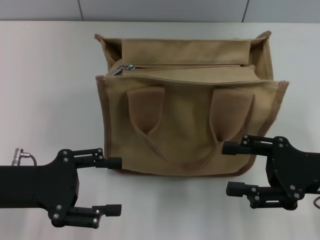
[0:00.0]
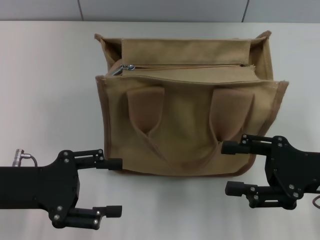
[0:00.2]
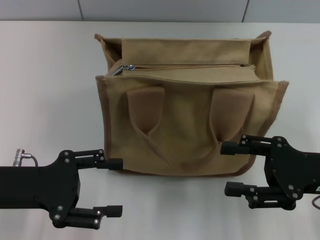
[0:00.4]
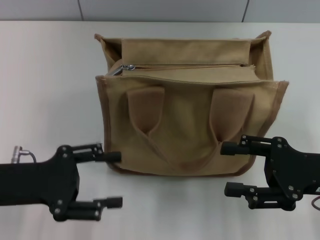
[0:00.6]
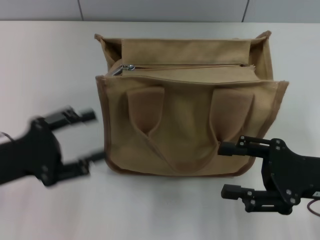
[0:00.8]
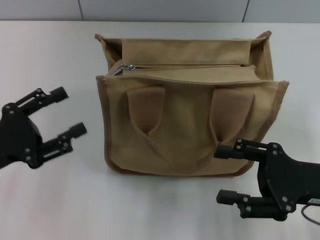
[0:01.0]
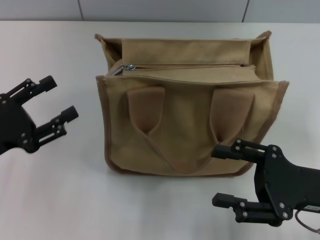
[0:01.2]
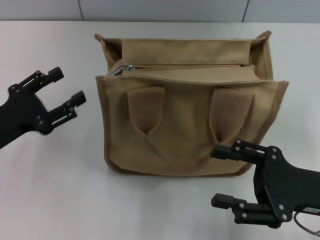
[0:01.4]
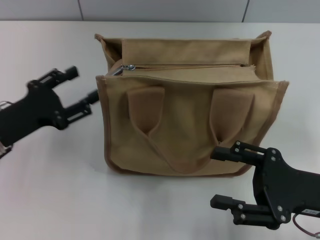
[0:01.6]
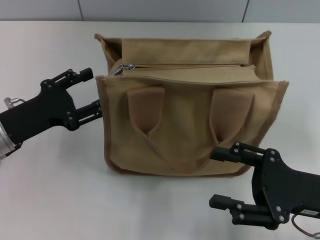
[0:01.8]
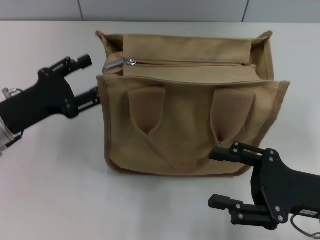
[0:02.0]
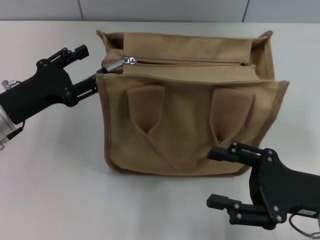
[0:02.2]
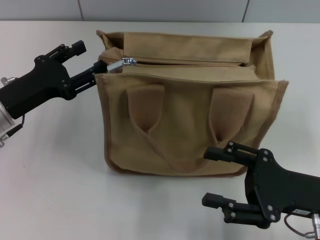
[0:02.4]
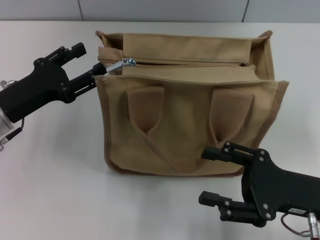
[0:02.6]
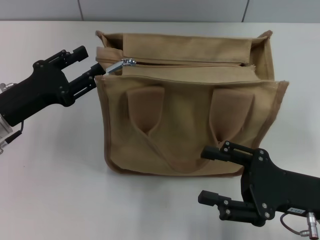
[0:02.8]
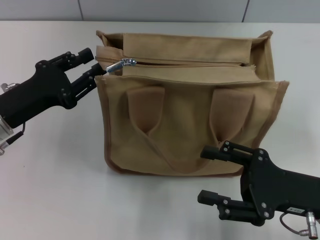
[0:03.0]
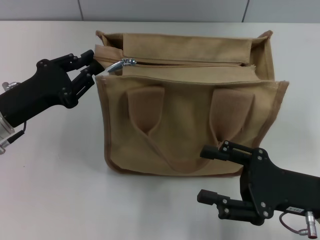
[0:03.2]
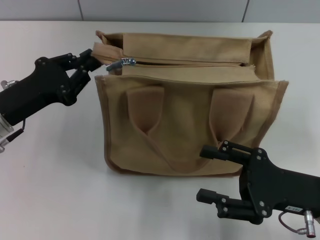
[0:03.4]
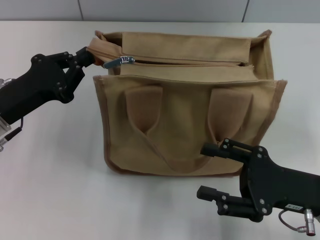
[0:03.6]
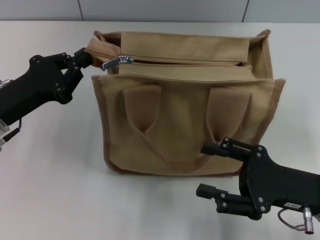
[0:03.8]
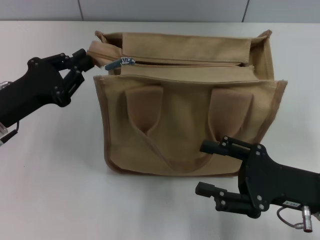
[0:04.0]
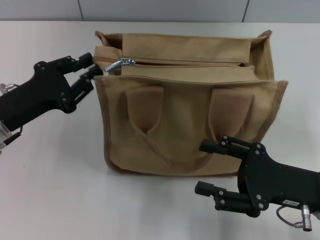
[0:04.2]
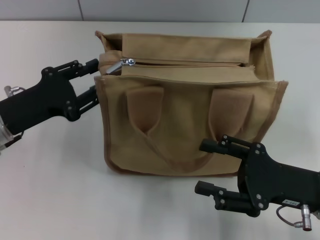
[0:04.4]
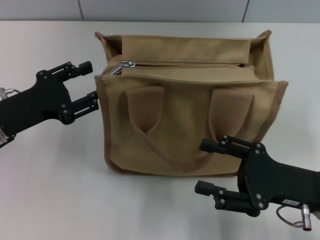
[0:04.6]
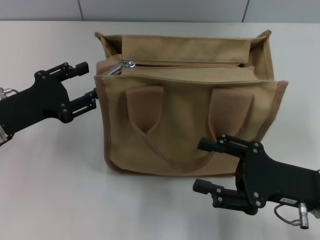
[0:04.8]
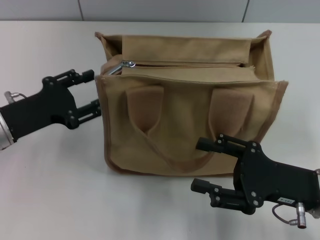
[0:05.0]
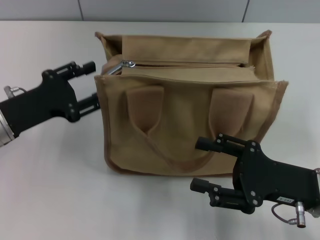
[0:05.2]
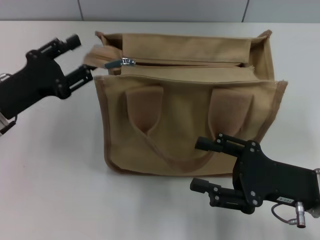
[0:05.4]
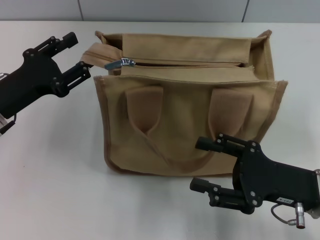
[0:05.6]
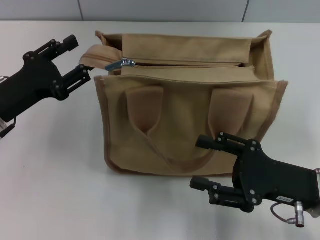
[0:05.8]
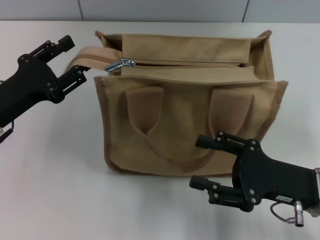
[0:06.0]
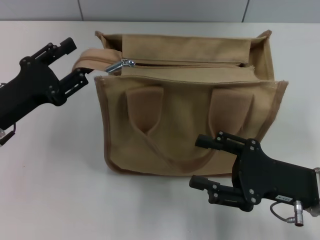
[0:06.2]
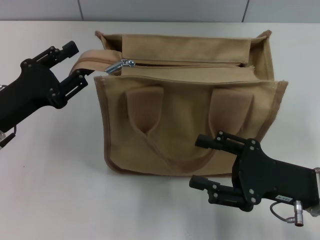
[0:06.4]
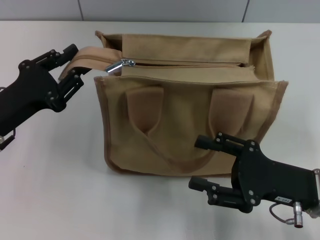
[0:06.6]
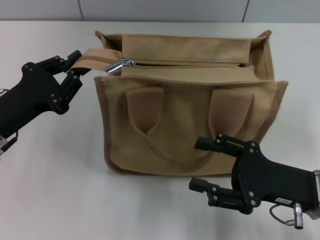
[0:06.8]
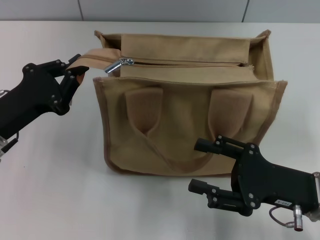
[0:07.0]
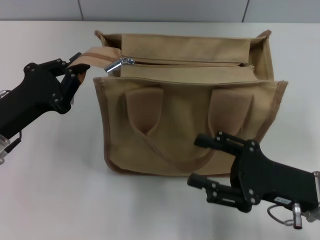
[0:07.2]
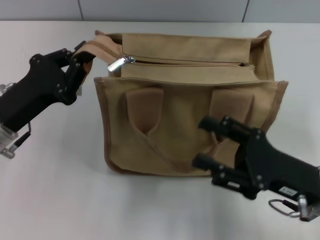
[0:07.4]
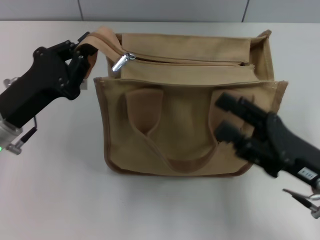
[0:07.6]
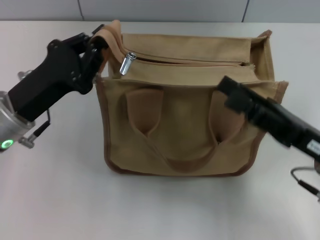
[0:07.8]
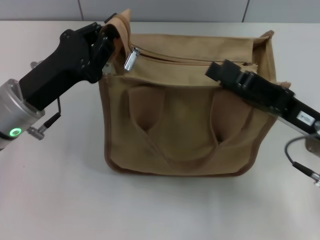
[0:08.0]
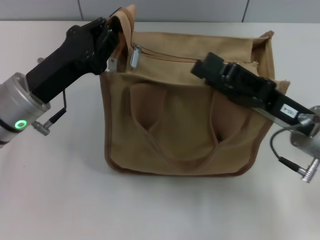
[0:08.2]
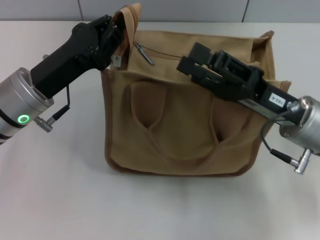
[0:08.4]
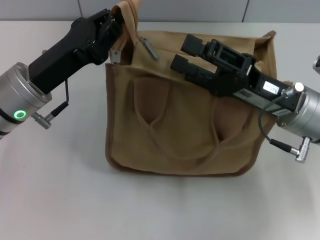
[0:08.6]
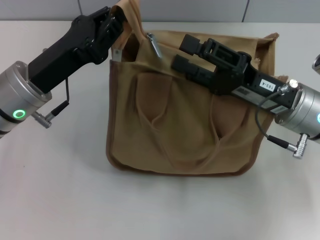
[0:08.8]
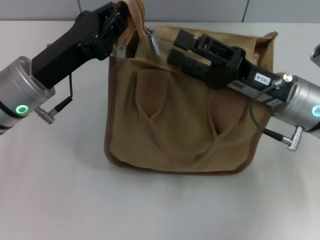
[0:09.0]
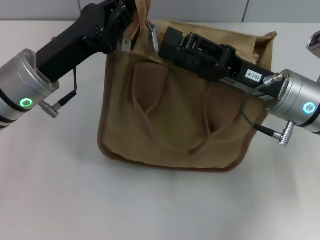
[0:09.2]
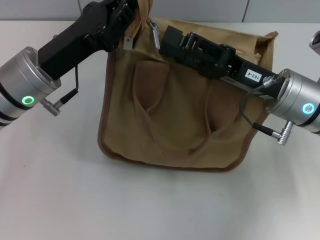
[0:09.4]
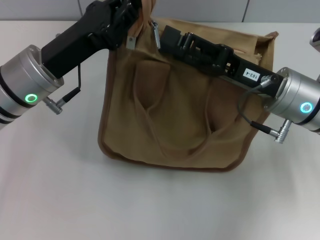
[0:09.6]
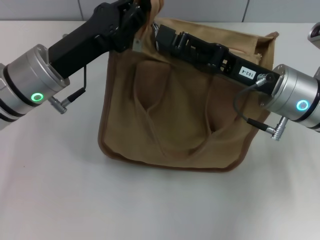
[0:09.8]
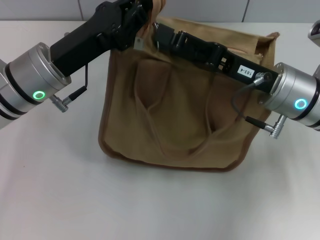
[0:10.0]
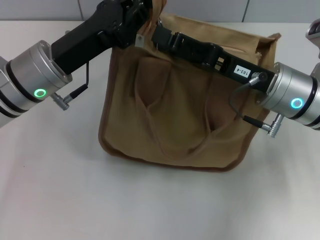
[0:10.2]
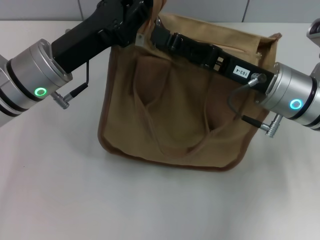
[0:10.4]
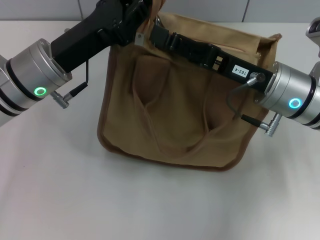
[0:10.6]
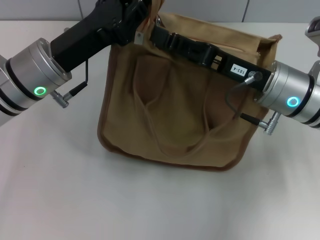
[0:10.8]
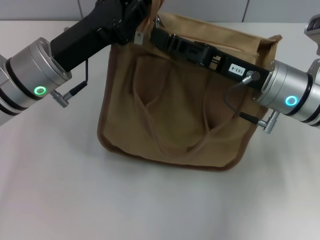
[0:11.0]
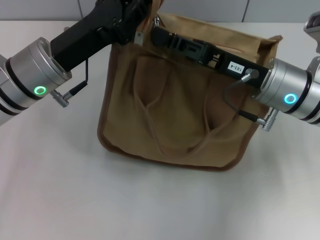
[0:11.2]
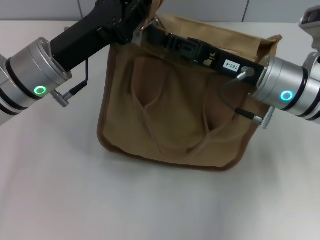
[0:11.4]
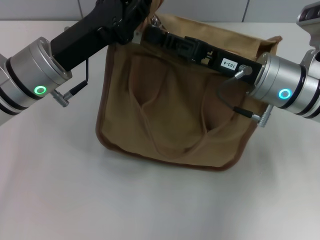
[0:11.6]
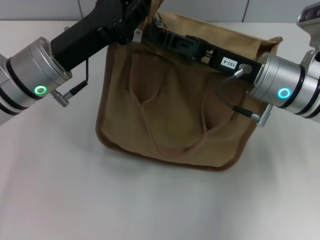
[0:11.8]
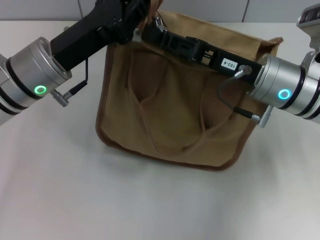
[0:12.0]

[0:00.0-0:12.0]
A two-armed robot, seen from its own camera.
0:01.6 to 0:03.0: There are only small adjustments of the grippers.
0:03.0 to 0:04.4: The left gripper closes its fingers.
0:04.4 to 0:06.0: The left gripper opens its fingers.
0:06.0 to 0:07.6: The left gripper closes up.
0:07.6 to 0:09.0: The left gripper ends up some 5 cm from where it was, while the right gripper shifts some 10 cm forward.
0:10.4 to 0:12.0: The right gripper closes up.

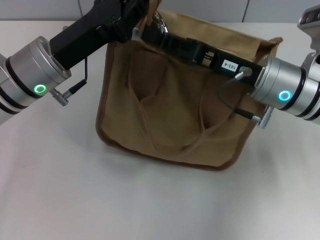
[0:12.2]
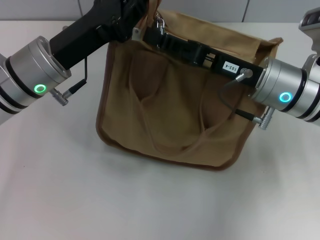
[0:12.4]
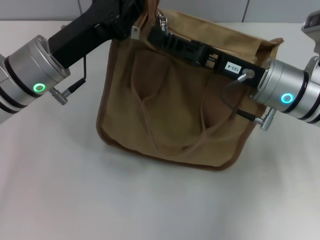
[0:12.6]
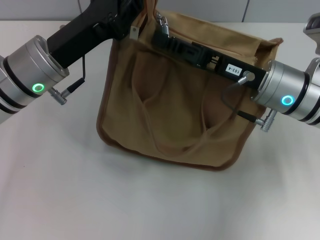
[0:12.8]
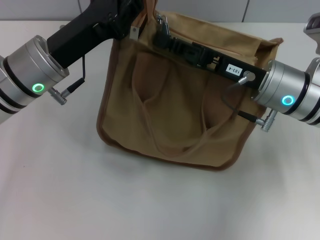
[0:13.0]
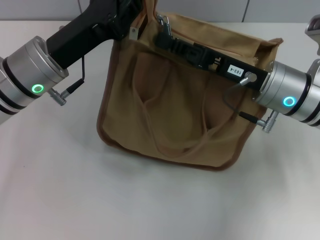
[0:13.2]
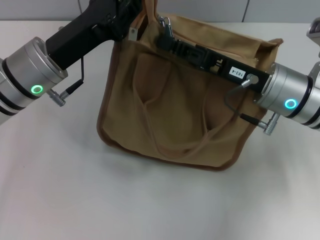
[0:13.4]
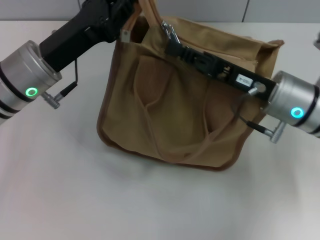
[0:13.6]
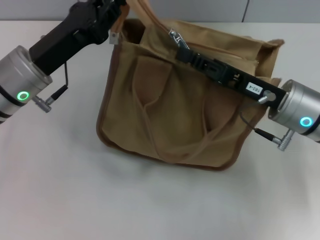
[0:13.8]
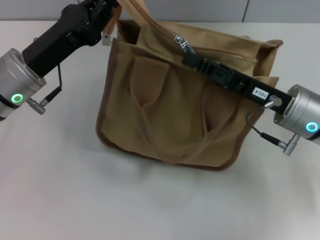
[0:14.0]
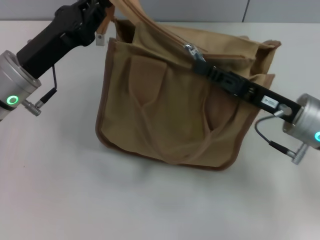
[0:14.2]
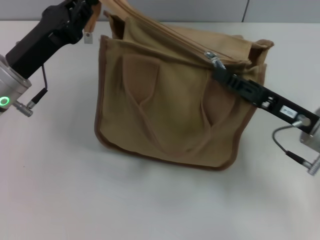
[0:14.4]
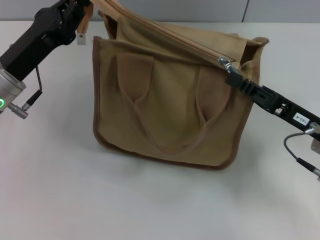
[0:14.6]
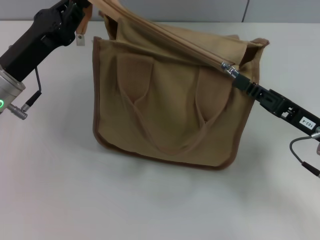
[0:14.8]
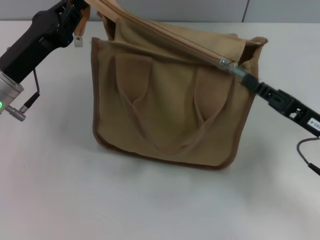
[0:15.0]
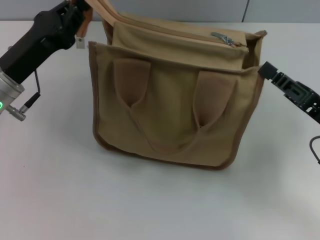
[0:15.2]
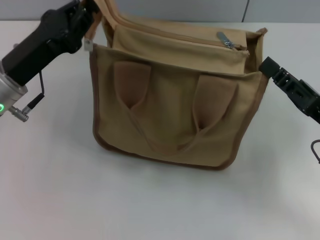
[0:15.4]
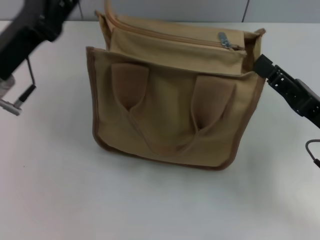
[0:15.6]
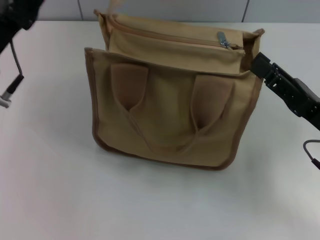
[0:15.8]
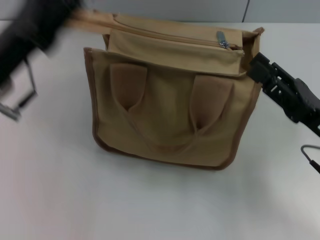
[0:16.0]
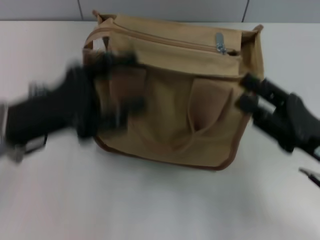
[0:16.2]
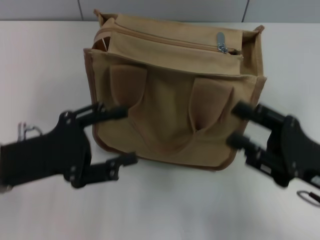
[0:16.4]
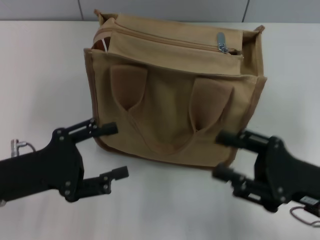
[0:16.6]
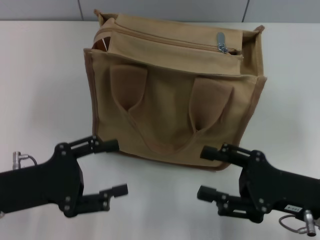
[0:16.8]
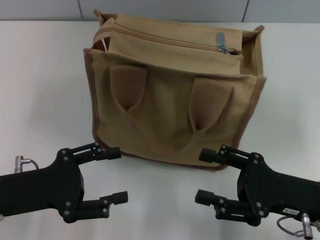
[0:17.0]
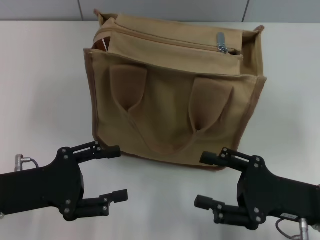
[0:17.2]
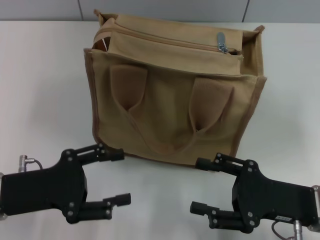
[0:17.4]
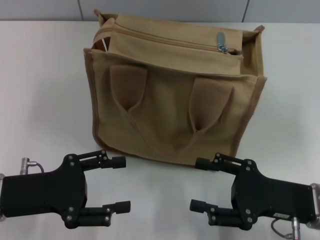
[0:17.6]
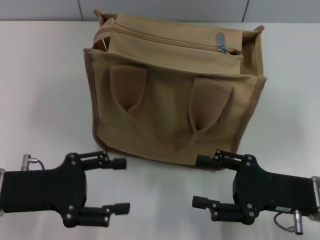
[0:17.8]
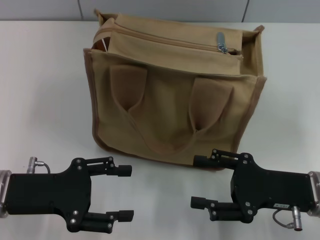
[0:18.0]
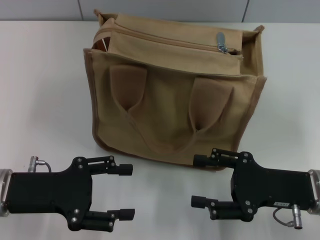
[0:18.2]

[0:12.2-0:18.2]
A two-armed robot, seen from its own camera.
Step, 0:12.2 to 0:15.0: Pull up the zipper with your right hand.
Step, 0:15.2 to 0:16.0: Grab the zipper with your left hand.
0:12.2 to 0:13.8: The right gripper closes up.
0:13.8 to 0:15.2: The right gripper heads to the right and backward, covering roughly 10 cm.
0:15.2 to 0:16.6: The left gripper heads backward, covering roughly 10 cm, and opens. The right gripper shifts by approximately 5 cm, and opens its fingers.
0:16.6 to 0:18.2: The grippers make only small movements.

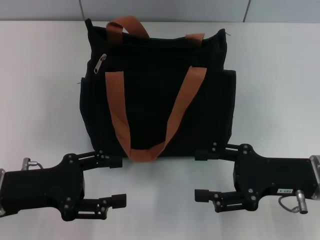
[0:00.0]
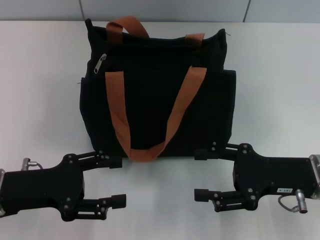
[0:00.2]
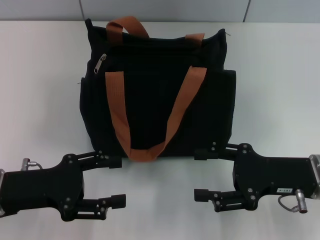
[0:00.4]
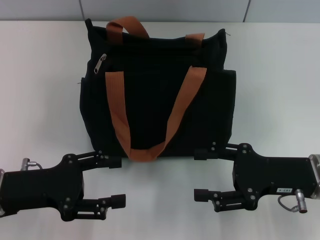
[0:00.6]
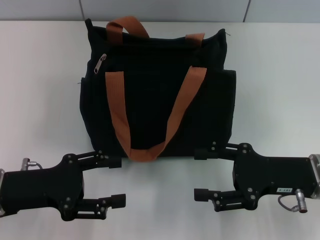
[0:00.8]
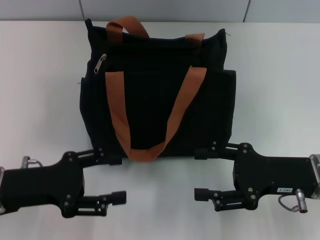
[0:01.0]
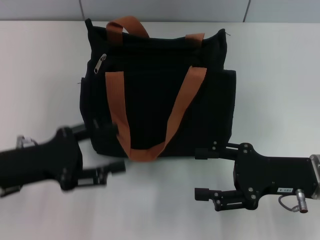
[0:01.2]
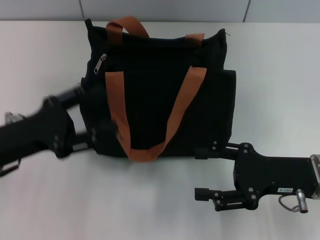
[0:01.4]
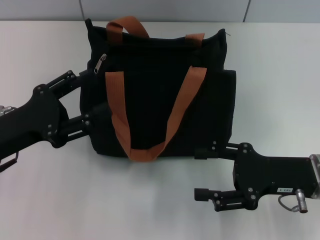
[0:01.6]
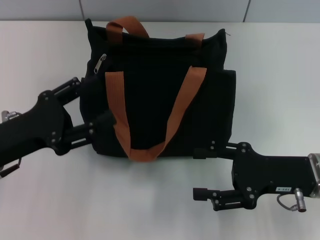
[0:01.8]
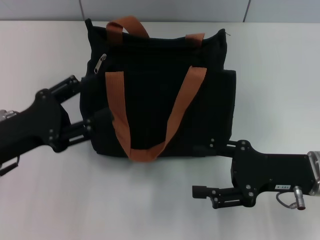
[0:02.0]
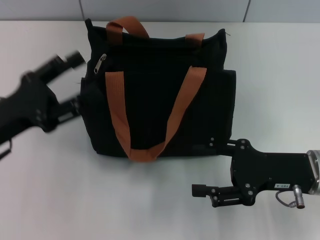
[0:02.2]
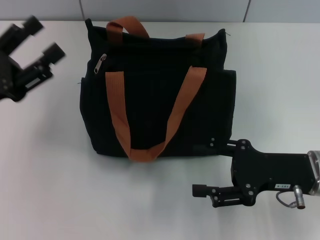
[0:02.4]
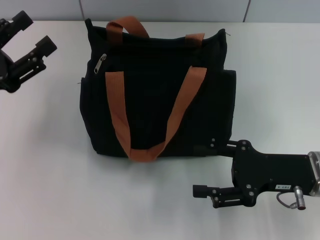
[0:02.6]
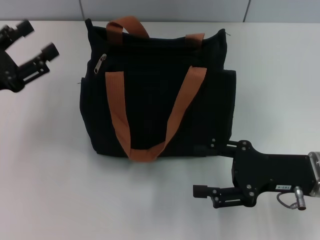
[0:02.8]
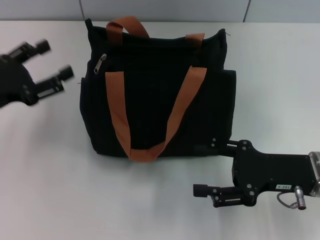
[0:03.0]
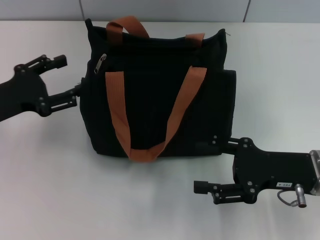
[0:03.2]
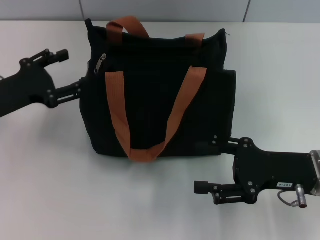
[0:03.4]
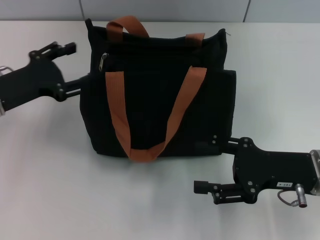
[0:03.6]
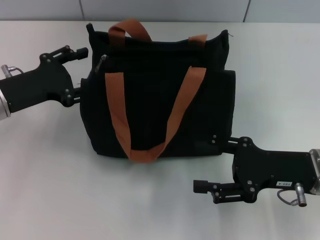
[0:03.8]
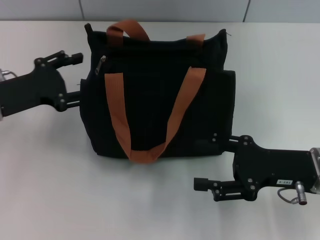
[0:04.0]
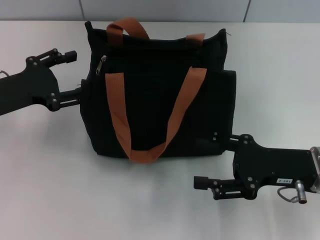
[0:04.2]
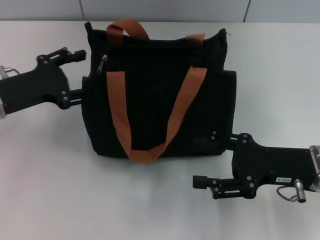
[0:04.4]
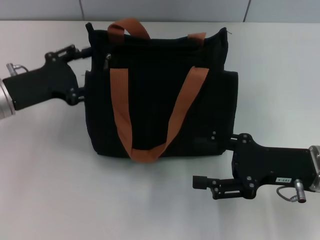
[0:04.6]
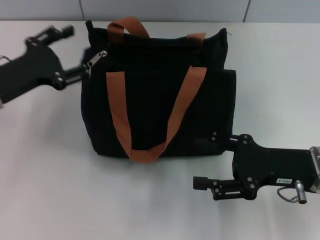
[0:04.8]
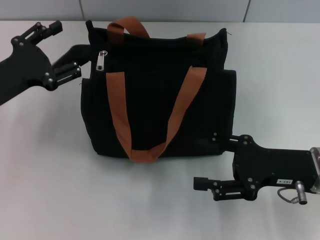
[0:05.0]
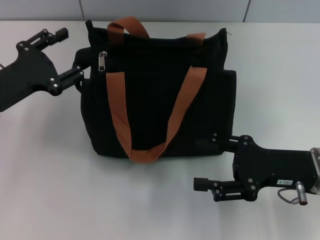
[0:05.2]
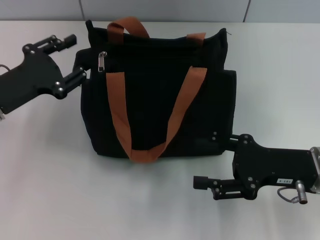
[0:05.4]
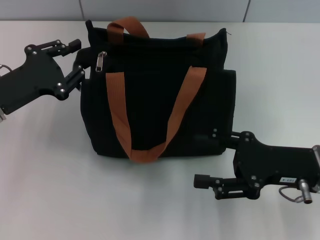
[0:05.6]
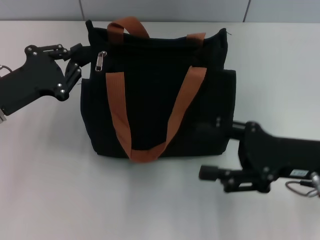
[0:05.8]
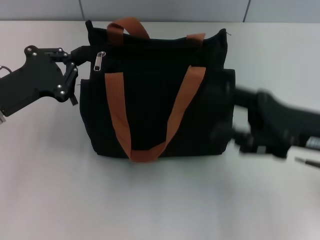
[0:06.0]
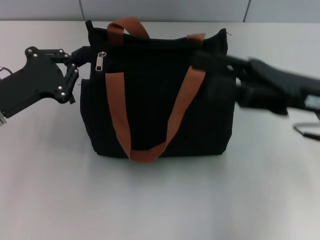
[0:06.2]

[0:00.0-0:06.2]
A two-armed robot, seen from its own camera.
0:01.6 to 0:03.2: The left gripper moves some 5 cm.
0:03.2 to 0:04.6: There are only small adjustments of the grippers.
0:04.6 to 0:06.2: The left gripper closes; the right gripper heads upward, covering roughly 10 cm.
